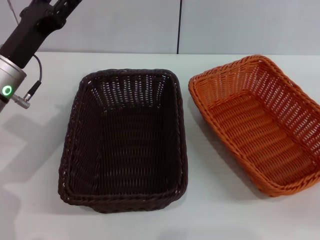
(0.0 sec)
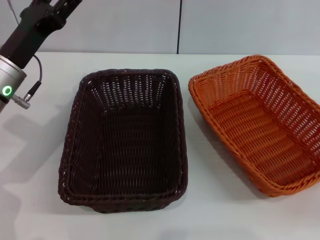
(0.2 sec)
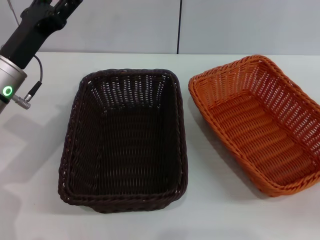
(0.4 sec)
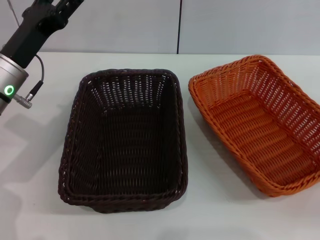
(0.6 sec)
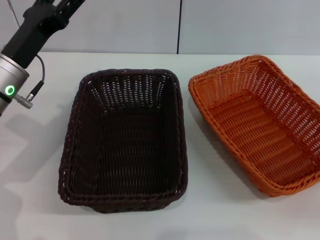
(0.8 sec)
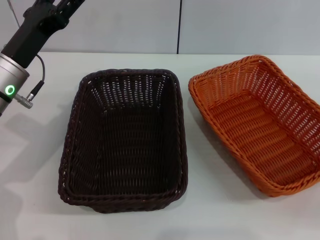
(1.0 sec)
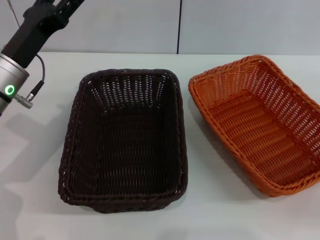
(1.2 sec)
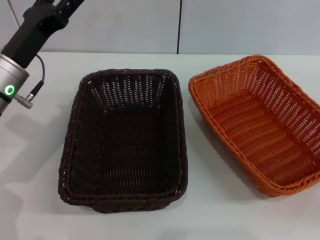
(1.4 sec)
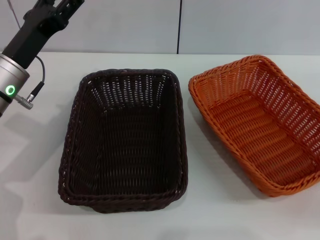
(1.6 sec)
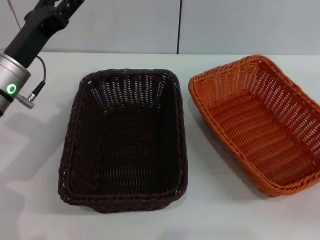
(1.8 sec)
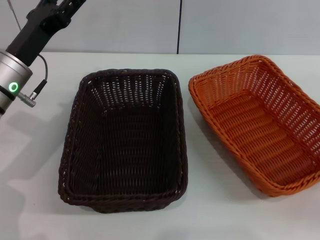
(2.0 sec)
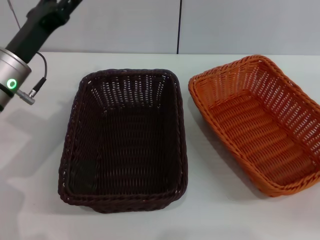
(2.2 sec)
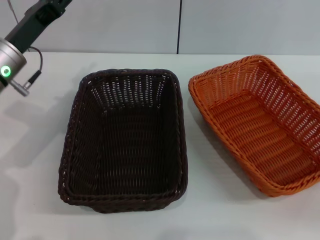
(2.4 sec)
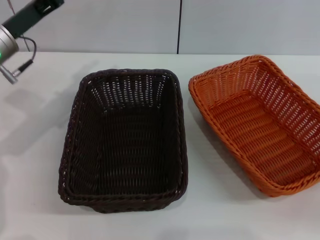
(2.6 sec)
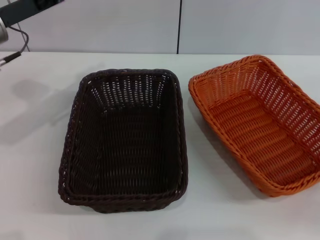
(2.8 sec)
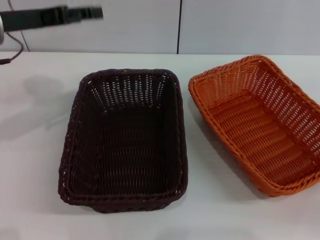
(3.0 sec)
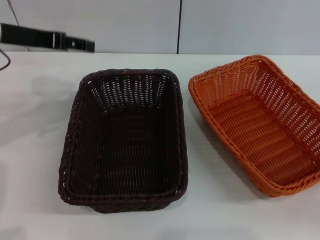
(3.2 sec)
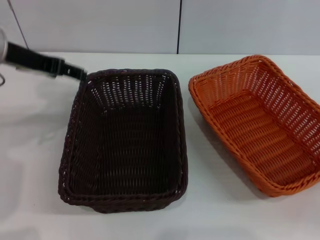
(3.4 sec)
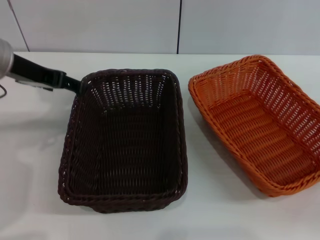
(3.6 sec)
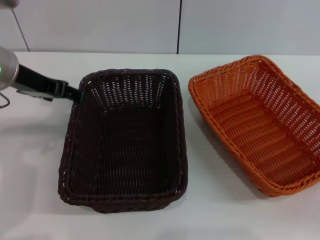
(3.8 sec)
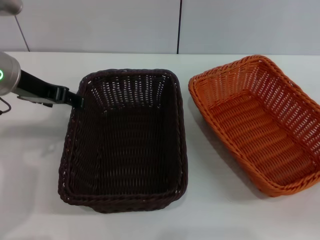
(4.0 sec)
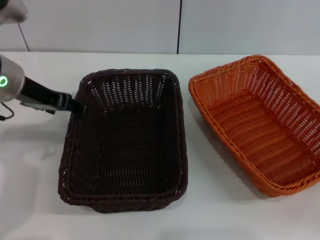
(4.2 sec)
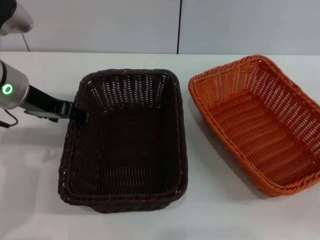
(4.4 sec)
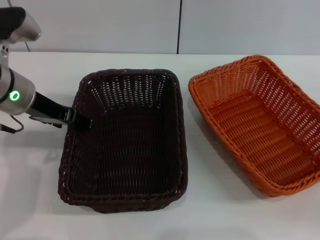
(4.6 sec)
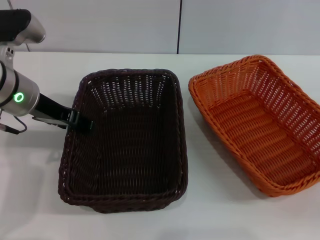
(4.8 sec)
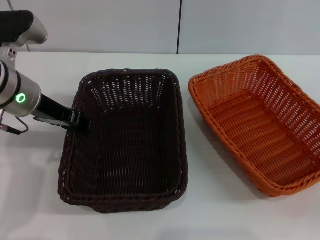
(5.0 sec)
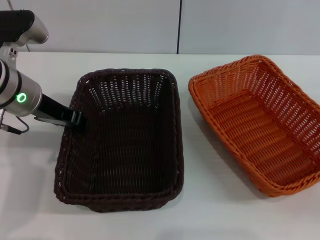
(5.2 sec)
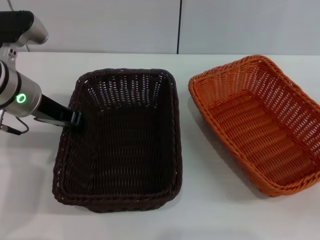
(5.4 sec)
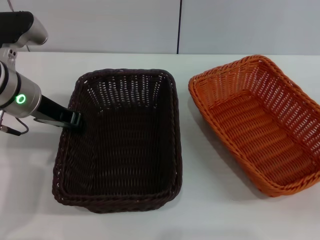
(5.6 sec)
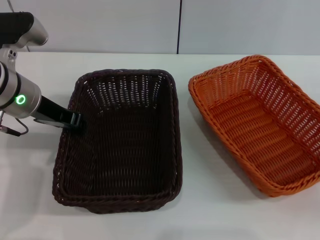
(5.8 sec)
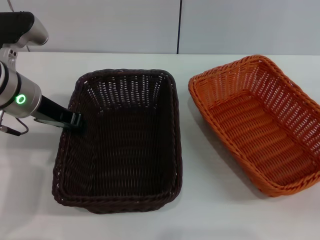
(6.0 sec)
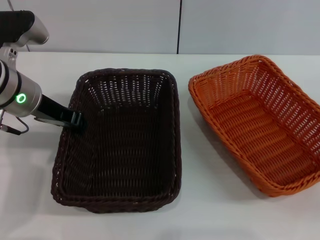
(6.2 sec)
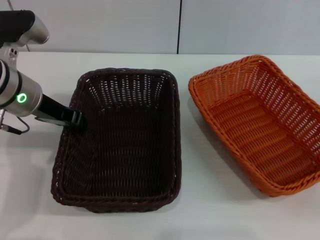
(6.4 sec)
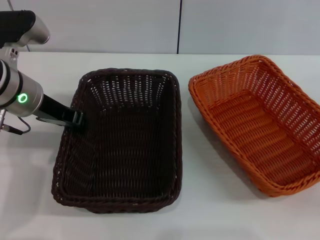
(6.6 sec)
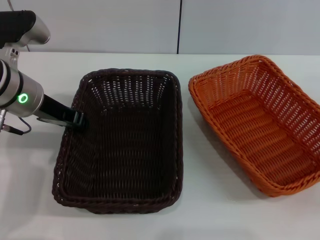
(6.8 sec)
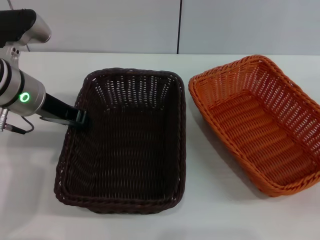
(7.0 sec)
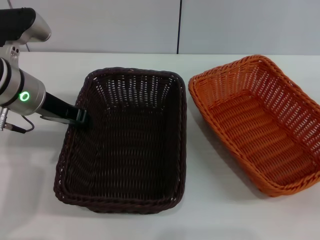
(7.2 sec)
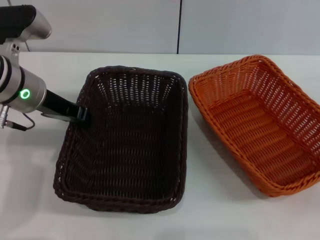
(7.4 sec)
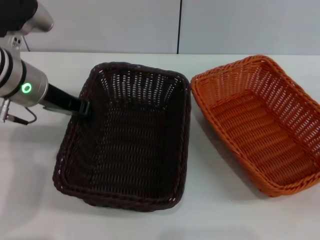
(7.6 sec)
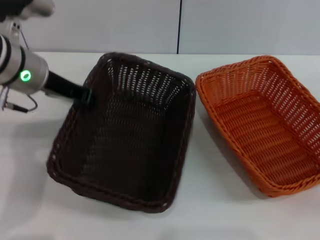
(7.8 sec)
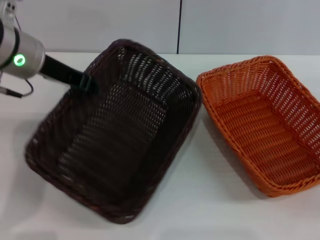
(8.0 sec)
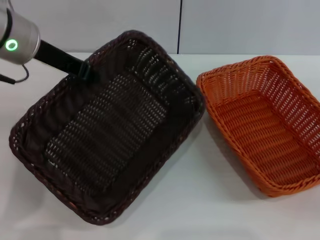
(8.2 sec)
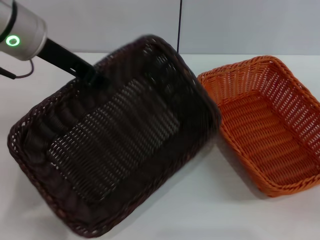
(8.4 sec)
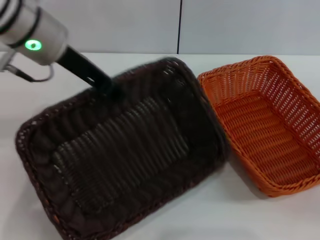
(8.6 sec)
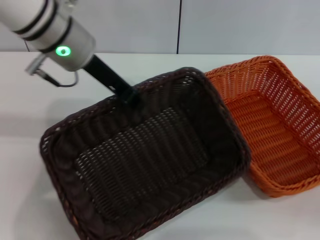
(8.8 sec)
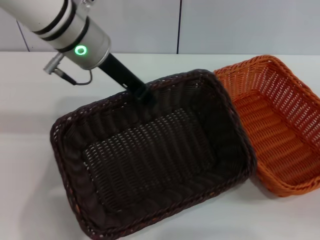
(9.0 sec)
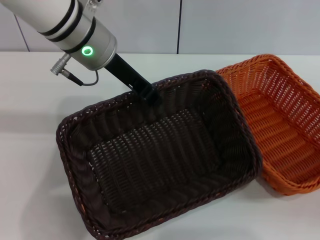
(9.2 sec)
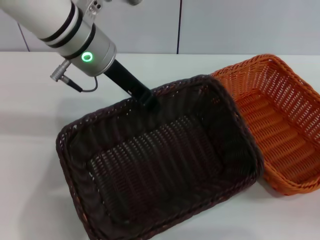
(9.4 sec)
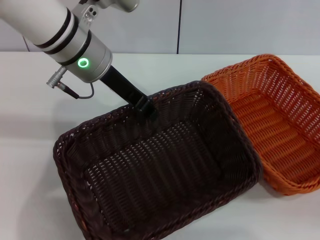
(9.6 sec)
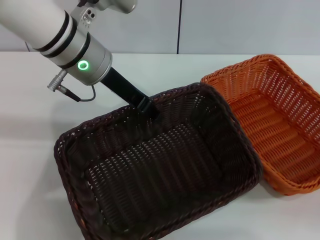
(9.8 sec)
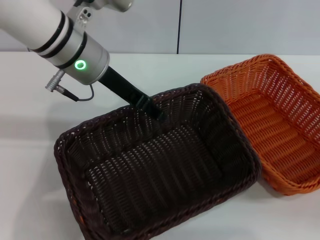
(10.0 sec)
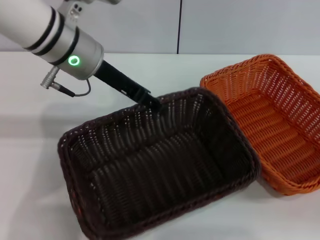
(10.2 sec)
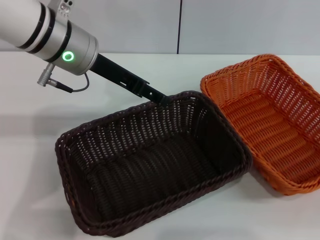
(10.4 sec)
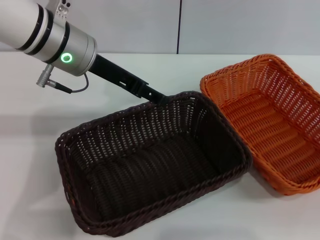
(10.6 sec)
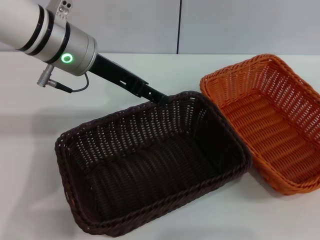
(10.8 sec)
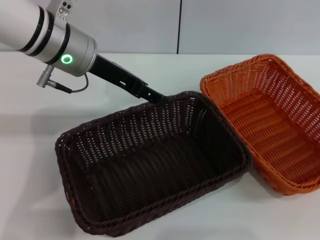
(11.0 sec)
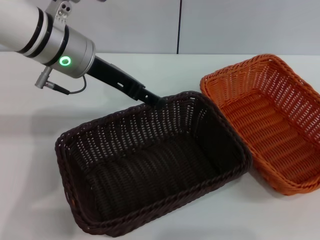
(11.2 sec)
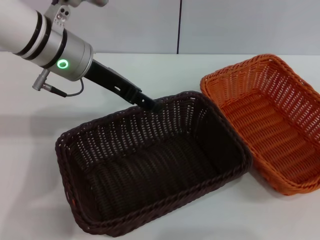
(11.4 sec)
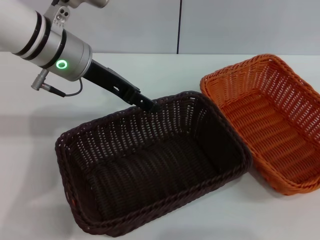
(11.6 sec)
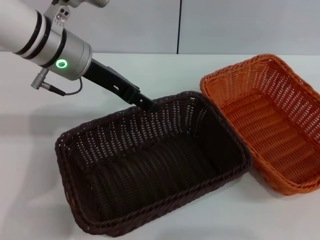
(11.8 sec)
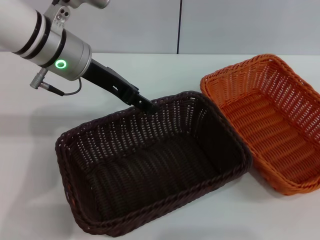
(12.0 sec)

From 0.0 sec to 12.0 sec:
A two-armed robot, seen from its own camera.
Step, from 0.0 sec to 7.8 sec: Pick up the dark basket with the left gripper.
Step, from 8.2 sec to 10.2 sec: Place the dark basket in the center of view with the left gripper.
From 0.0 sec to 1.6 sec: Both grippers stay about where they are.
From 1.6 sec to 3.0 sec: The left gripper goes about 10 cm upward.
From 3.0 sec to 4.4 sec: The left gripper ends up about 5 cm from where it was.
From 4.4 sec to 6.0 sec: The left gripper closes its fingers.
From 6.0 sec to 7.6 sec: There are only small adjustments of the grippers.
From 7.6 sec to 9.0 sec: The left gripper goes roughly 10 cm to the right and upward.
From 9.0 sec to 10.4 sec: The left gripper opens up.
From 10.4 sec to 12.0 sec: The right gripper is displaced upward by roughly 10 cm.

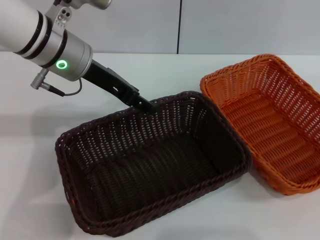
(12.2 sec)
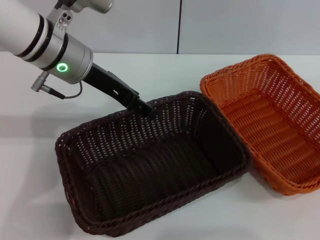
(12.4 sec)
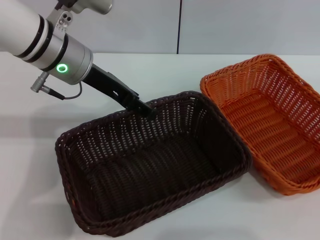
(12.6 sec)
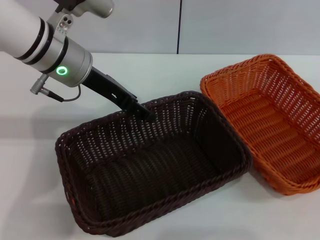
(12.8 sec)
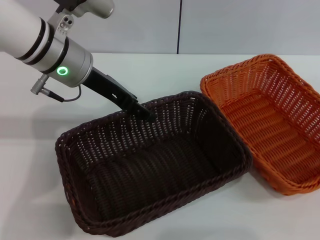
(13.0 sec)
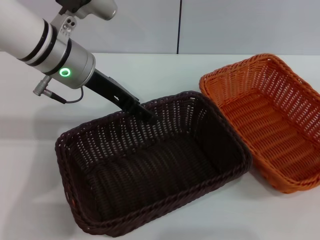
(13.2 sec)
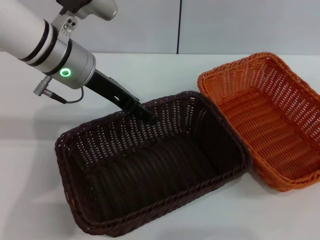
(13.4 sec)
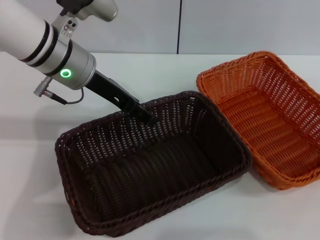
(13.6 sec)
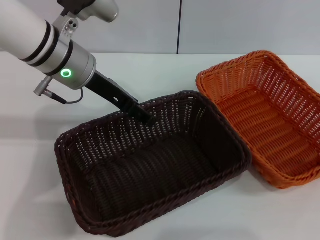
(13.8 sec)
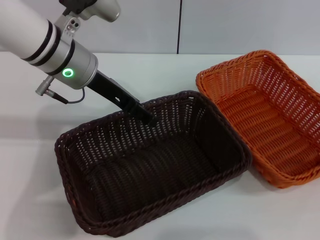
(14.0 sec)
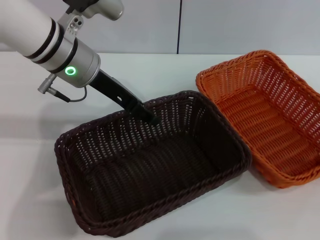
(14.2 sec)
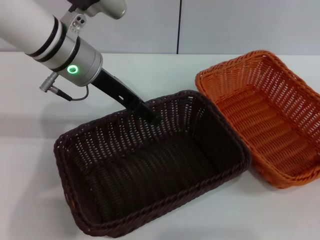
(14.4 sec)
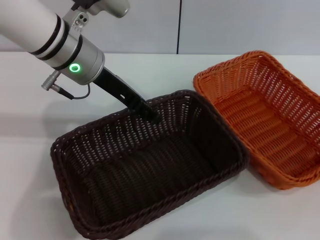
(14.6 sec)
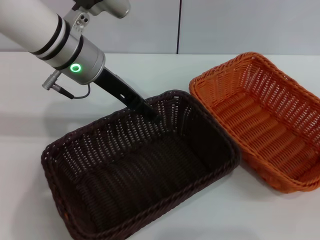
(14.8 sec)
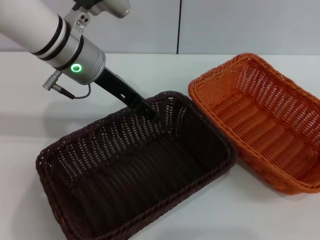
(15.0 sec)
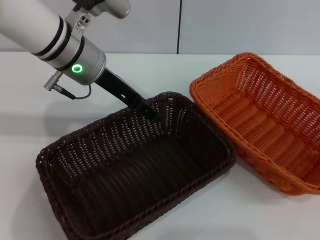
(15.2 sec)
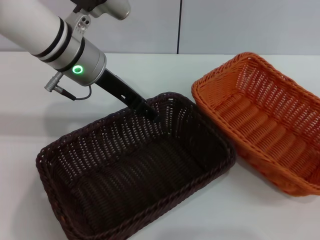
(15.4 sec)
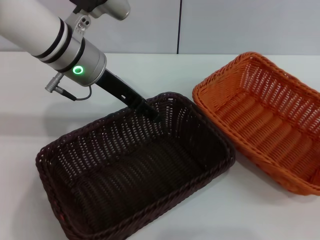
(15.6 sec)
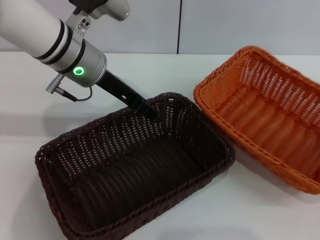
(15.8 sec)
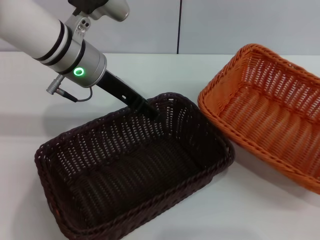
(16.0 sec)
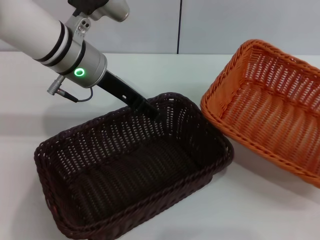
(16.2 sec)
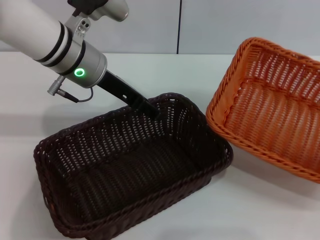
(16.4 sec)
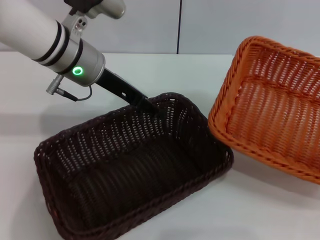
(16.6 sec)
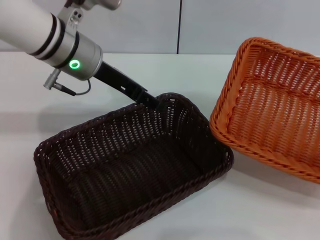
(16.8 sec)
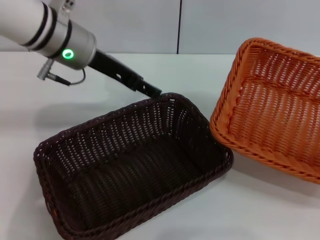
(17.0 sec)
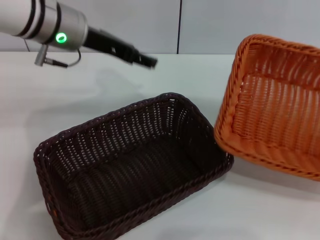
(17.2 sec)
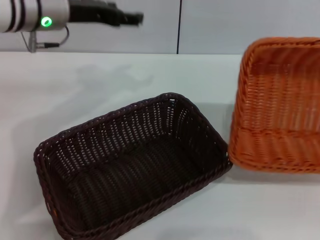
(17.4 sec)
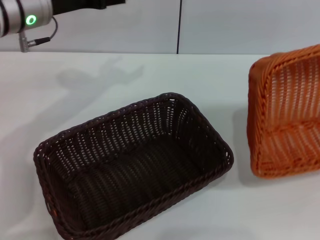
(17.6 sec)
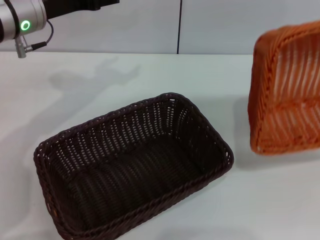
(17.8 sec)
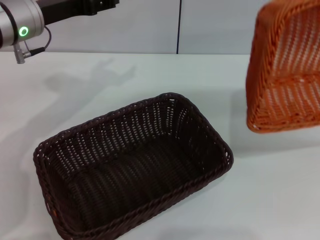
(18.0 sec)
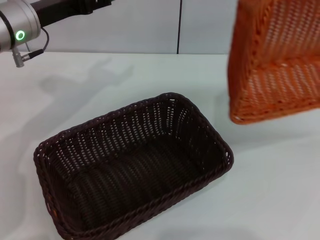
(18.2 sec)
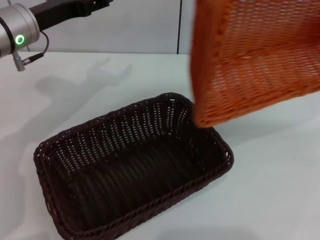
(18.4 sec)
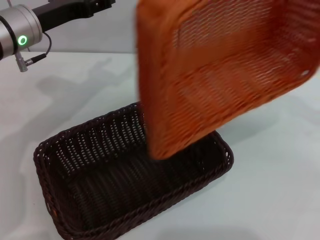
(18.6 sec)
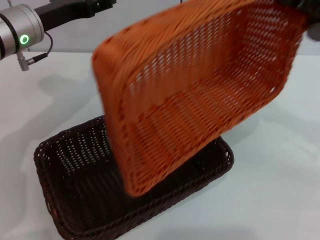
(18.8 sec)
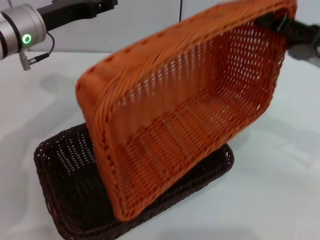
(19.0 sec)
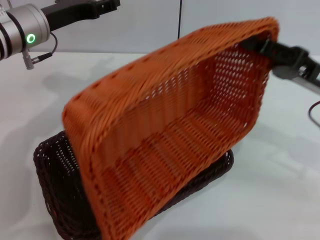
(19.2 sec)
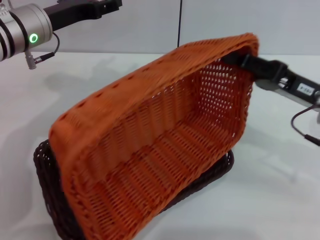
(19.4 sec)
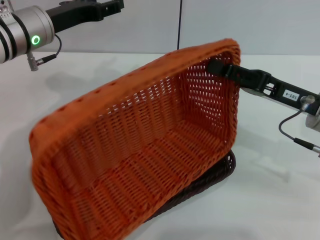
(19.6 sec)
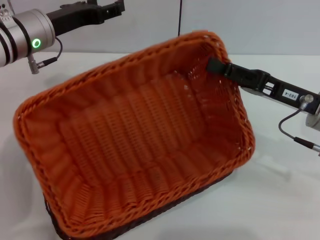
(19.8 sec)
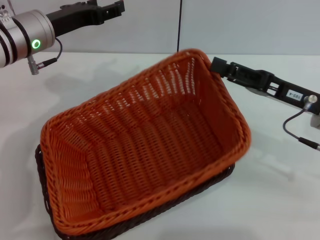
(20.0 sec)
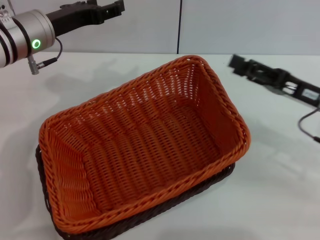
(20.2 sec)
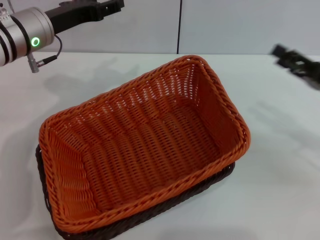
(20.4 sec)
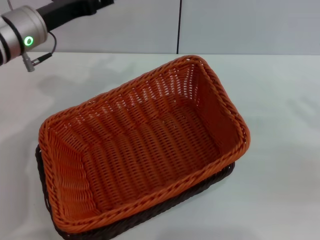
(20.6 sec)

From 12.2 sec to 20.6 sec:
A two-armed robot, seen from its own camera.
Step, from 12.2 sec to 16.2 sec: Pick up the light basket with the right gripper.
Step, from 16.4 sec to 20.0 sec: Place the light basket on the dark basket with the right gripper.
From 12.2 sec to 13.6 sec: The grippers move only a little.
From 15.0 sec to 16.4 sec: The right gripper shifts by about 5 cm, and closes up.
From 16.4 sec to 17.8 sec: The left gripper moves to the left, some 10 cm, while the right gripper goes roughly 5 cm upward.
From 17.8 sec to 19.2 sec: The right gripper moves to the left, about 20 cm.
From 19.2 sec to 20.6 sec: The right gripper moves to the right, about 10 cm, and opens its fingers.
